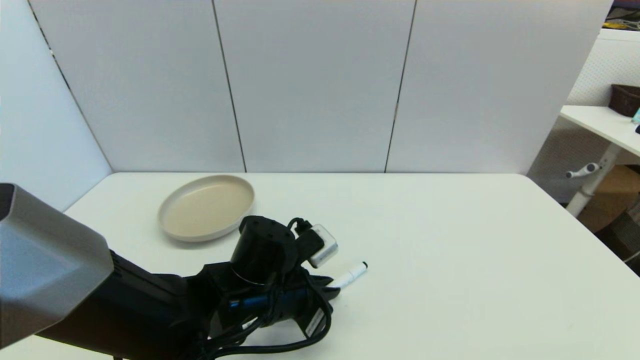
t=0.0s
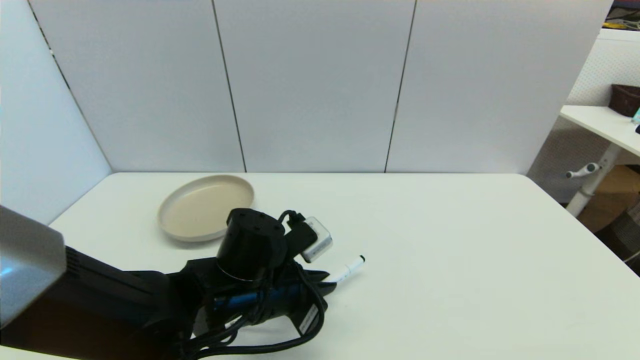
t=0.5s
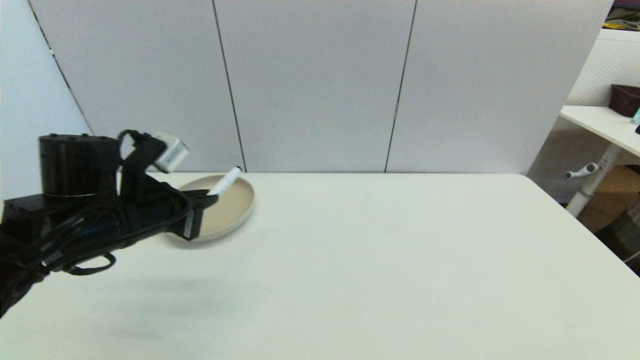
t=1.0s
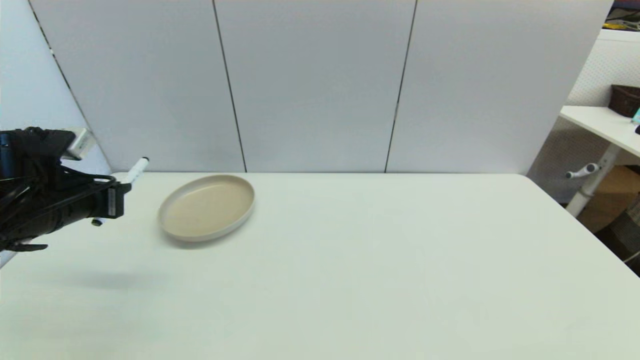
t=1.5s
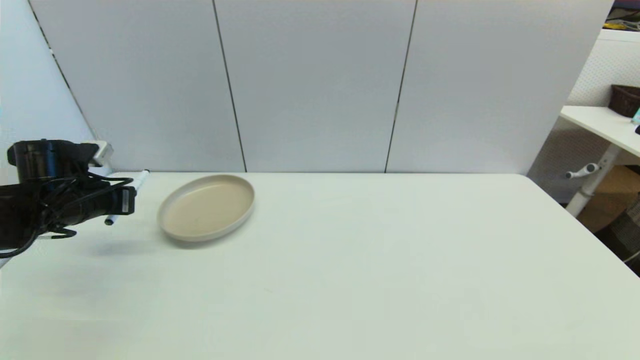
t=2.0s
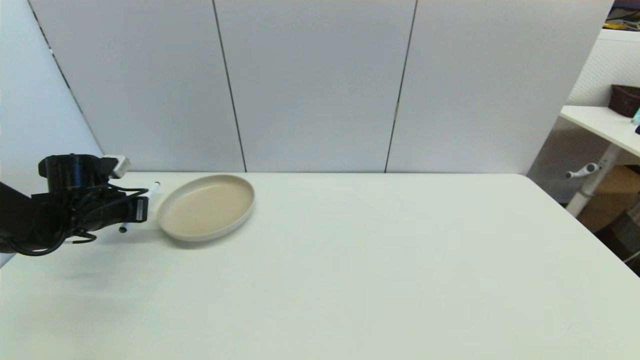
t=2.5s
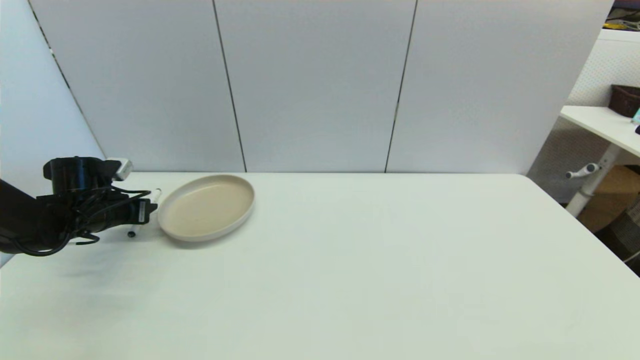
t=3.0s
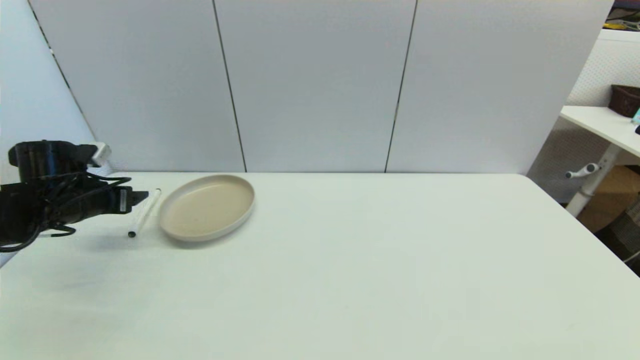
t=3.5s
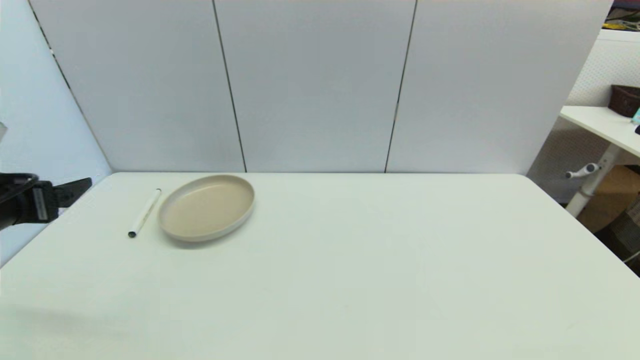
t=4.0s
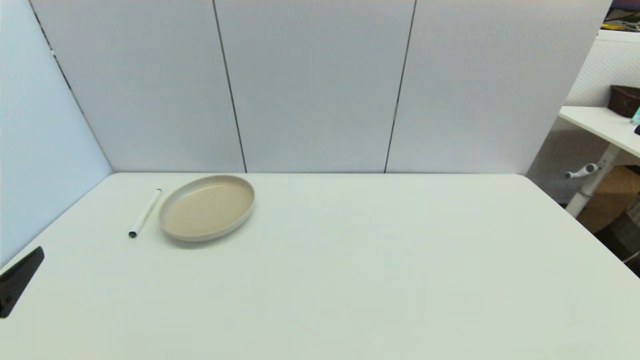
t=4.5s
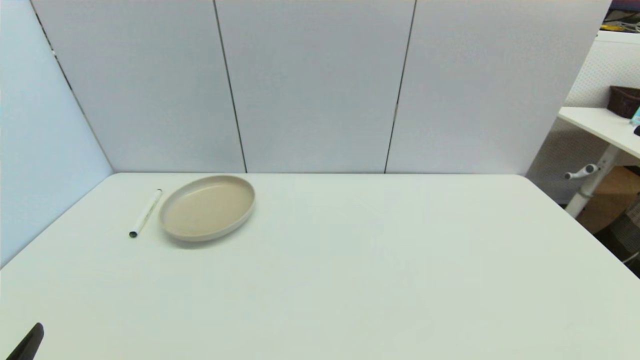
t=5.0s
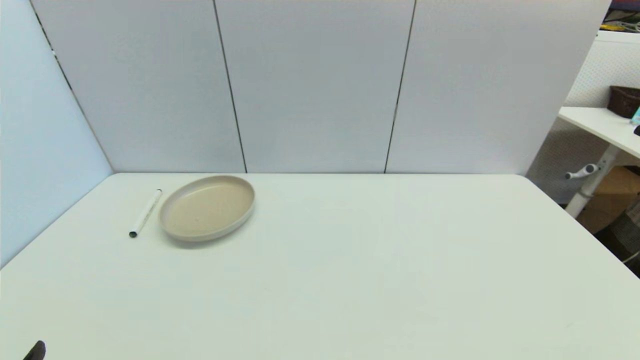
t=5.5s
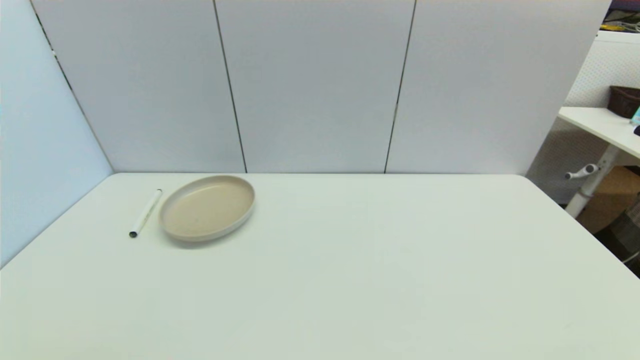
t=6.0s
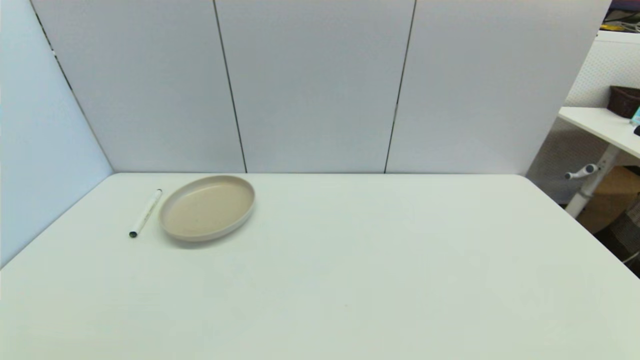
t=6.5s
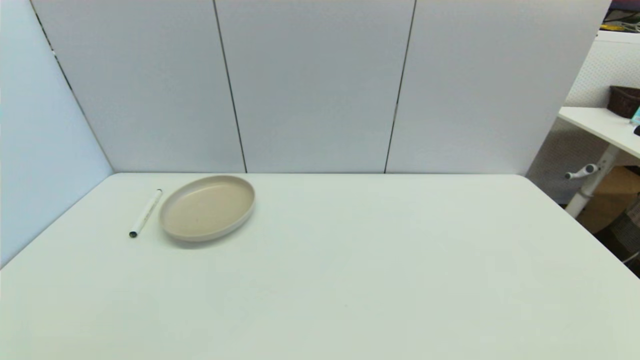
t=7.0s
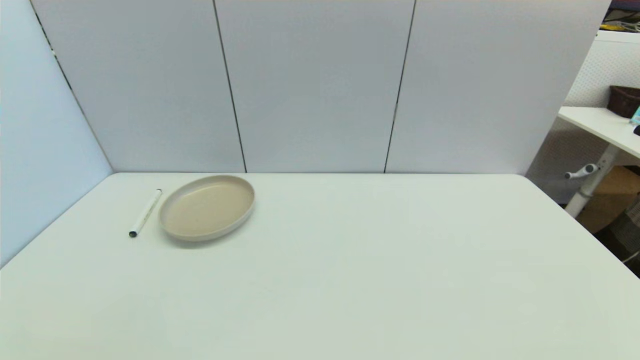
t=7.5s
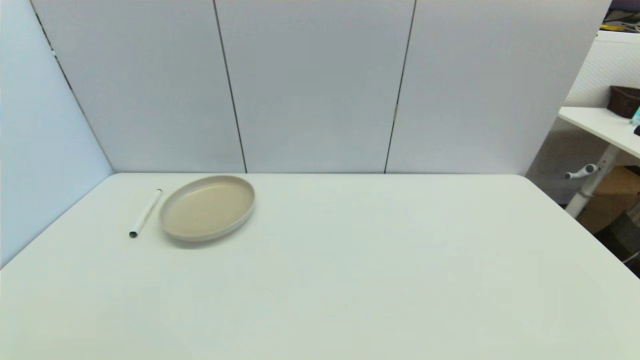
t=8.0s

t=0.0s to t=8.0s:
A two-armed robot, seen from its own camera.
Task of the whole recording: put the black marker in the designated position.
Step, t=0.5s to t=3.0s: Place the Marker pen on the table with left gripper.
t=0.0s to t=2.0s: The left gripper moves to the left, about 30 cm.
t=2.0s to t=4.0s: The left gripper moves backward and upward, some 15 cm, and opens up.
t=4.0s to t=6.0s: The left gripper shifts approximately 25 cm backward and downward.
